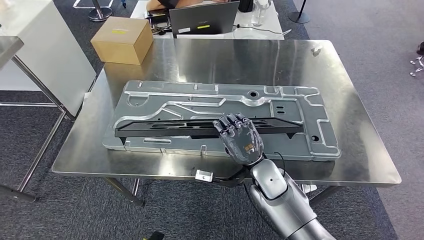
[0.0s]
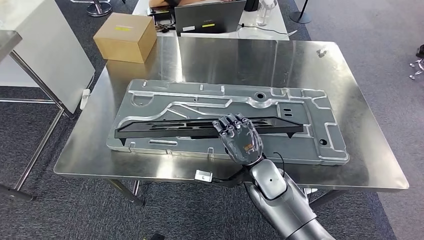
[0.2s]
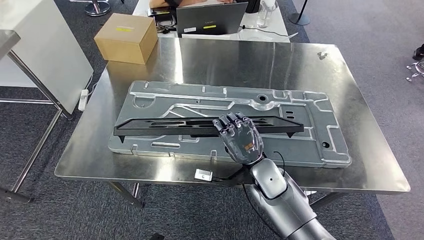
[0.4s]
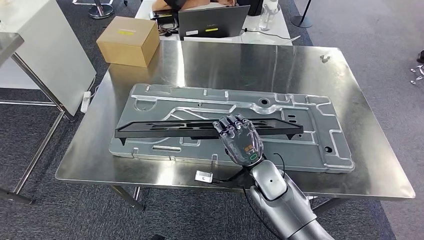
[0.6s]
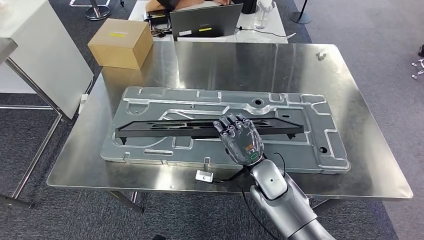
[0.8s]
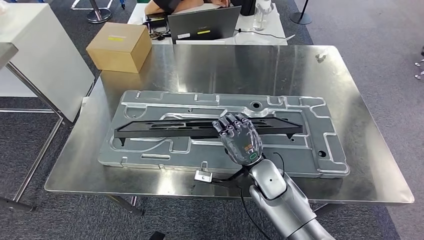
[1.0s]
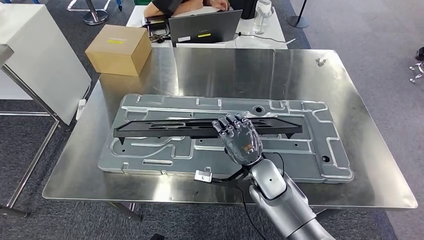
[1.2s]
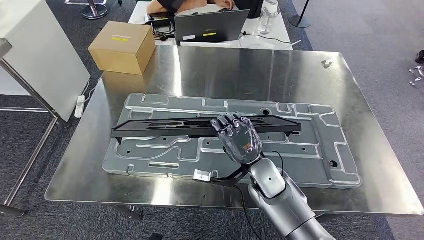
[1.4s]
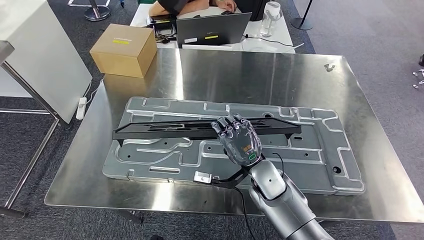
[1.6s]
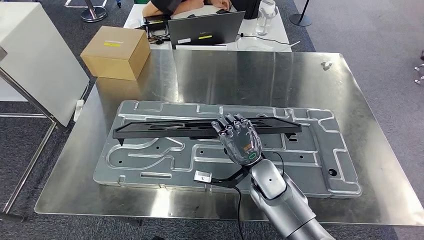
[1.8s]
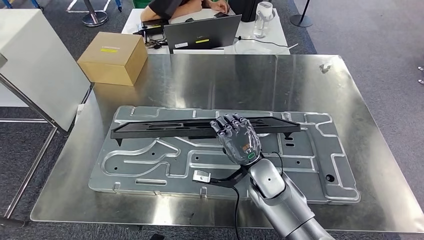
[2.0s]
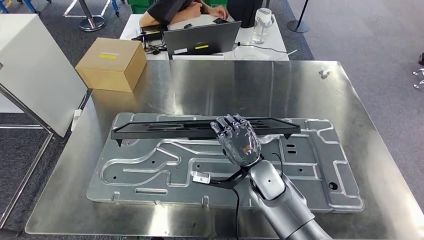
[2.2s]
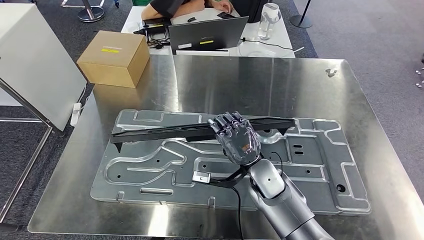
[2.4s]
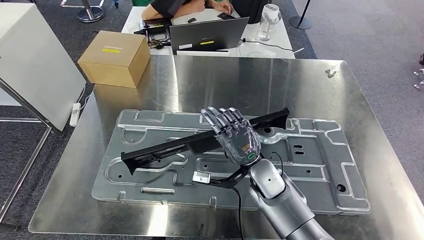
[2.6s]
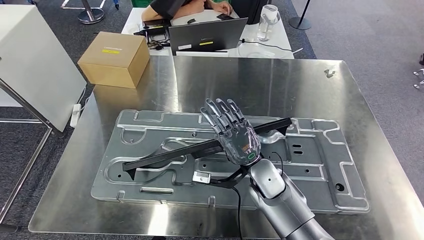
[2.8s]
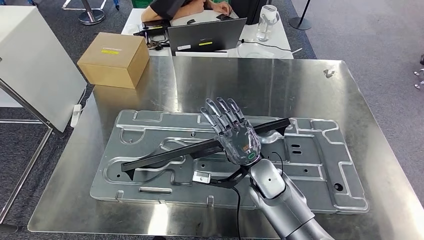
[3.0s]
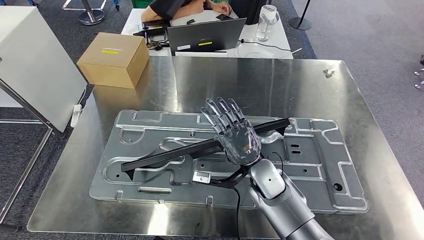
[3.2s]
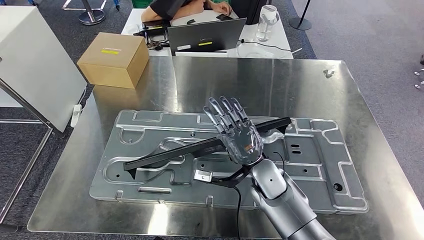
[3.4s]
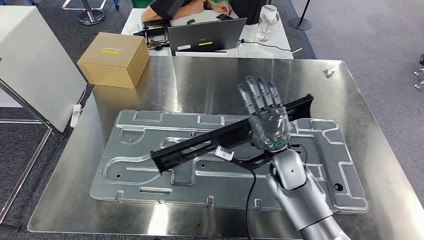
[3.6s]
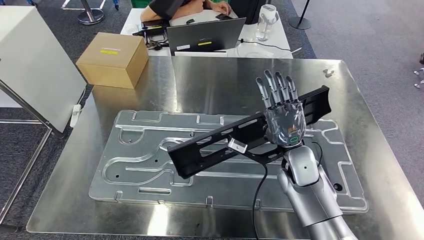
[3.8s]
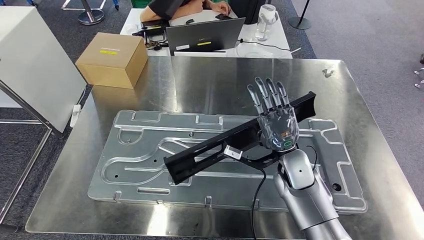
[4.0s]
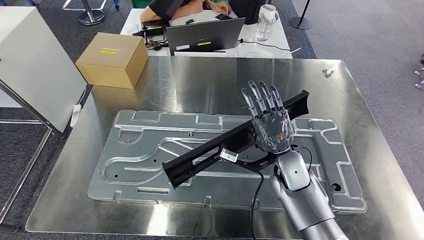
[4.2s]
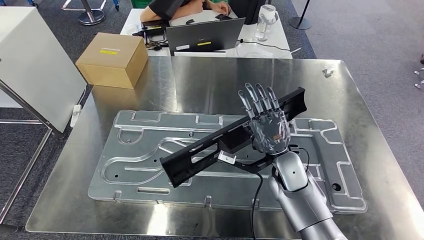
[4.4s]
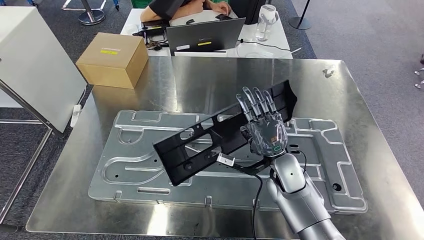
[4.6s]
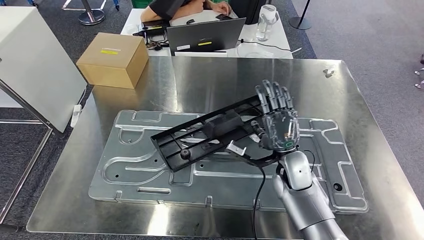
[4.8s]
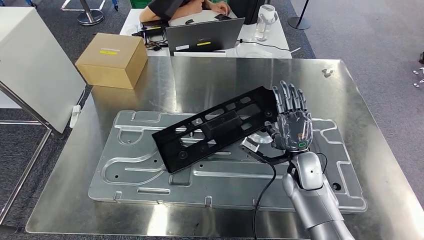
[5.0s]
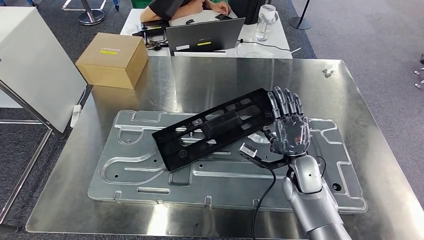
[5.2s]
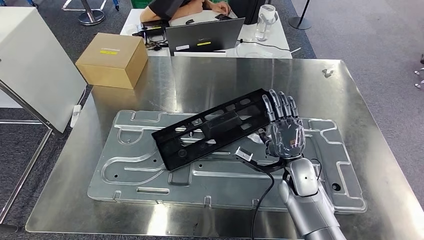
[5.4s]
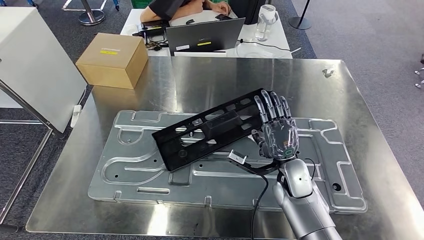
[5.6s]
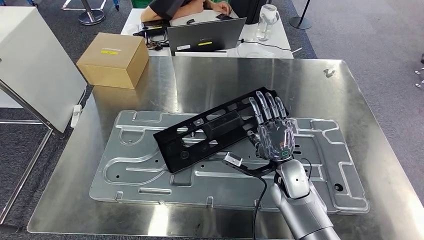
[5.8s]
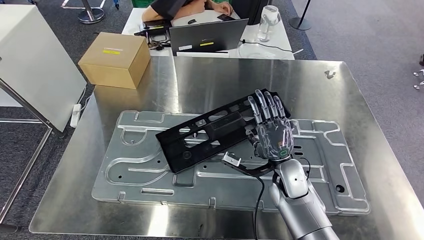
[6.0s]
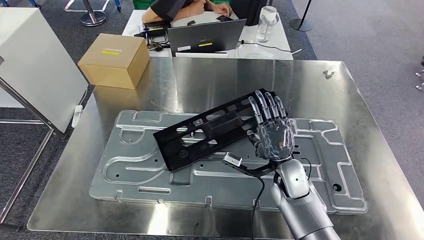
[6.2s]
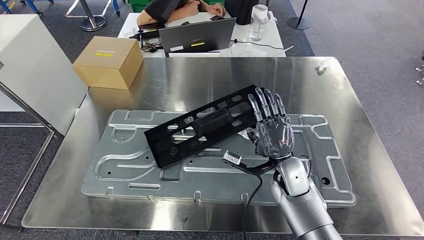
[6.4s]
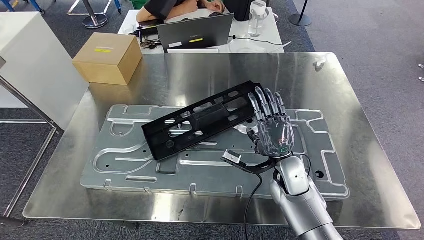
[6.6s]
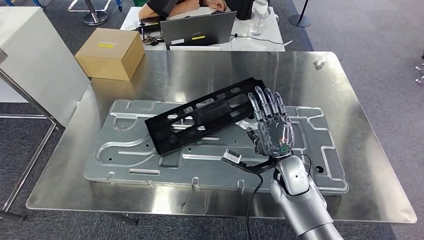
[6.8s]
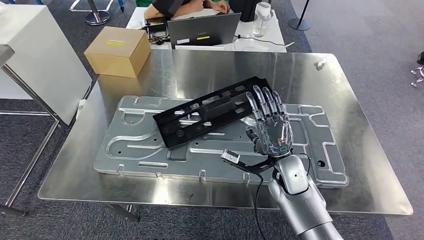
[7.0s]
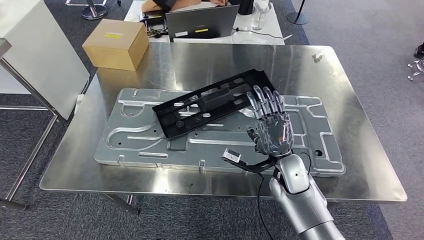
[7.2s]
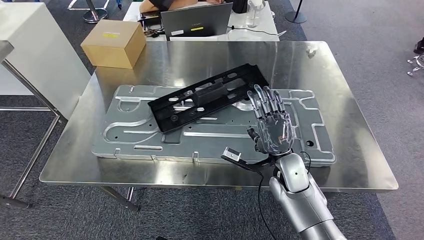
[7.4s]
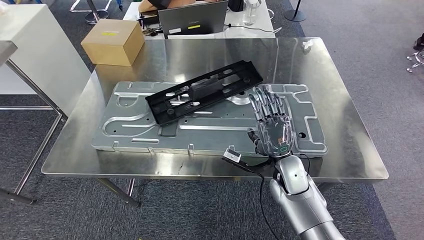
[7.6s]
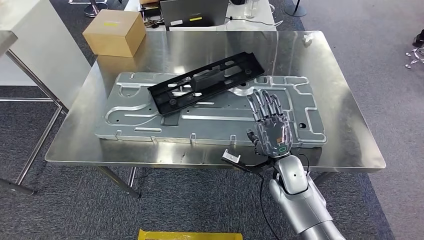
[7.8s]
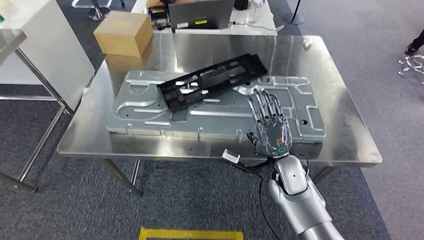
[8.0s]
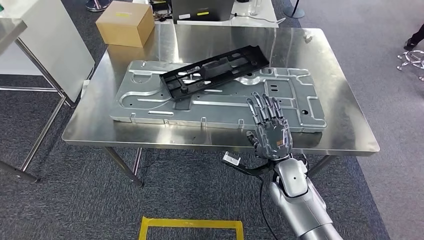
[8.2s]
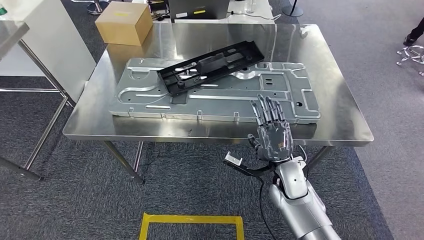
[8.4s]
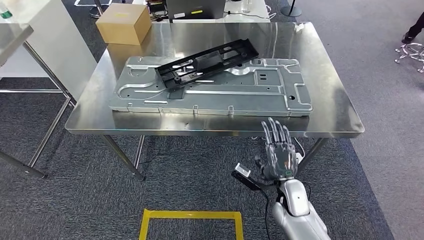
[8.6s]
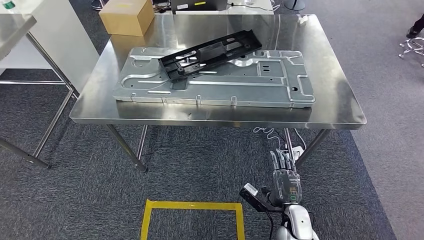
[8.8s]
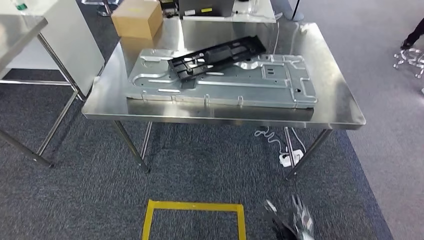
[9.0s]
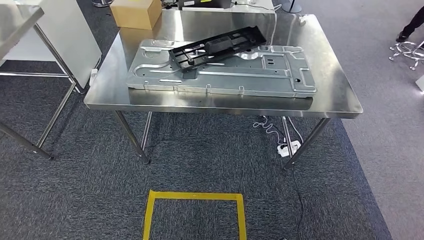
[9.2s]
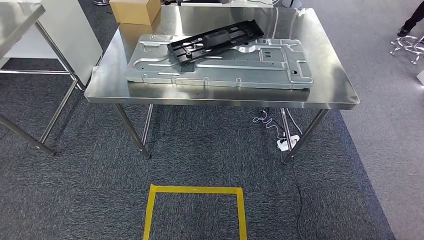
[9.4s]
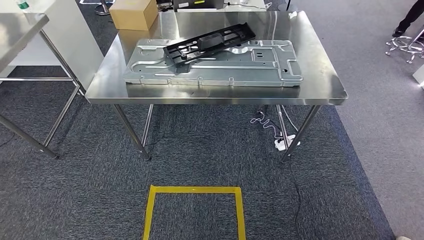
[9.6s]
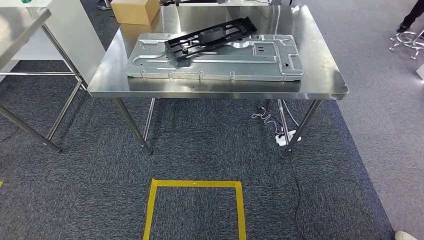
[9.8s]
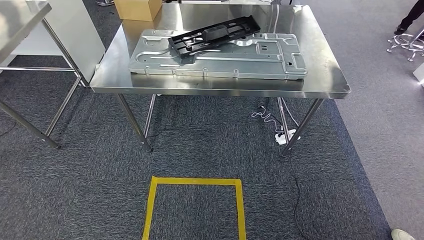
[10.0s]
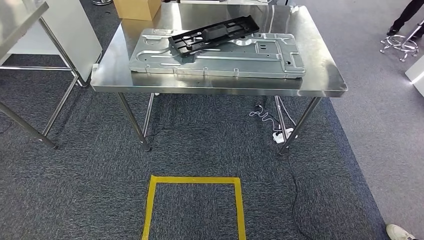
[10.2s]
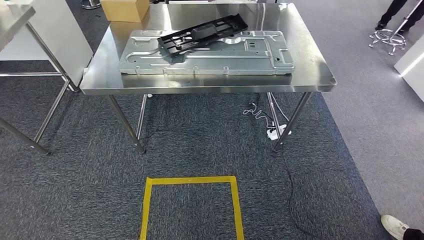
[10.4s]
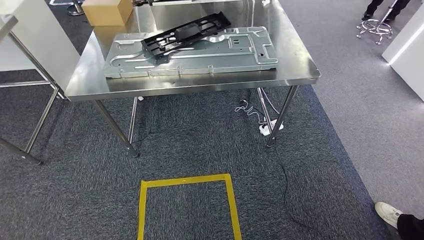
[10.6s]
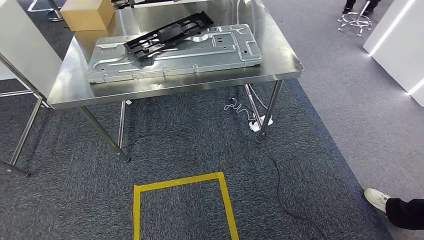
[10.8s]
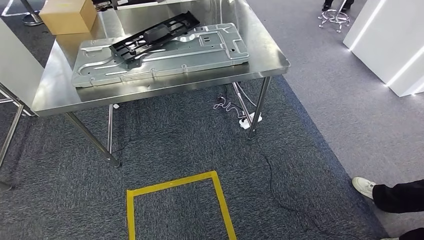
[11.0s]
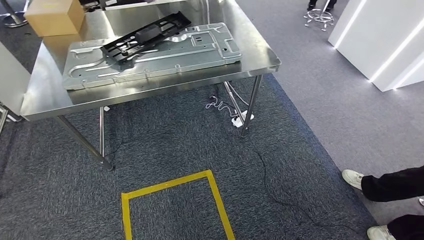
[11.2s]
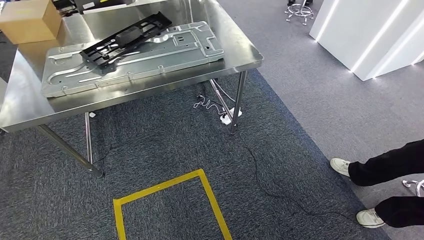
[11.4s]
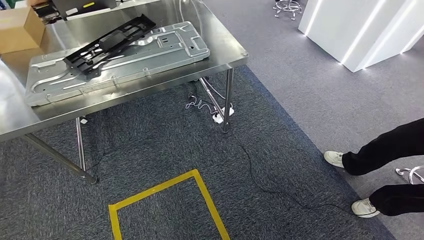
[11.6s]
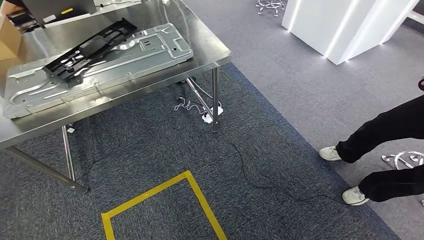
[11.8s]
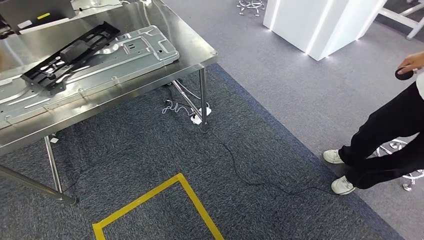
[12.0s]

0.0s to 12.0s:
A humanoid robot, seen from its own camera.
Step, 0.0s to 6.8s: Insert the large material into the corresponding slot on the workbench.
3.0s to 4.4s: The right hand shifts about 5 cm to the right.
4.4s to 6.0s: The hands stay close to where they were, moving slightly.

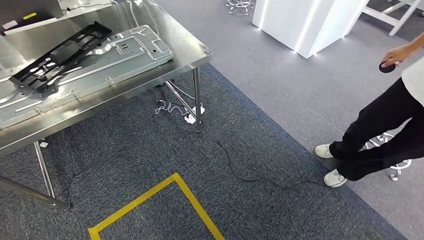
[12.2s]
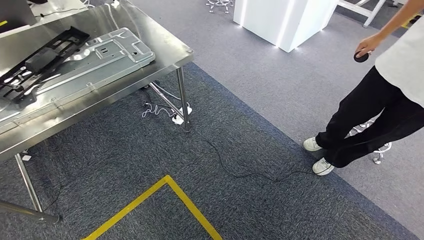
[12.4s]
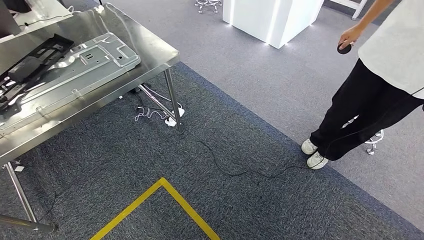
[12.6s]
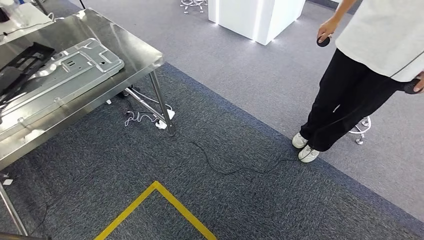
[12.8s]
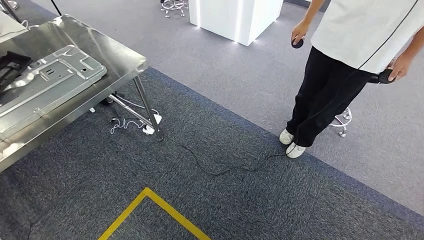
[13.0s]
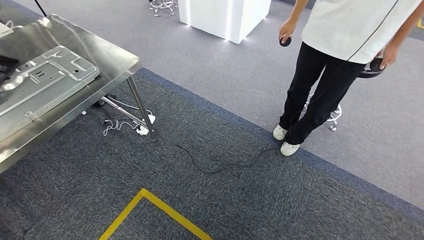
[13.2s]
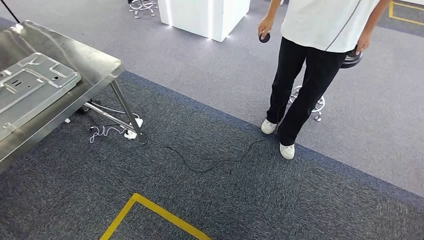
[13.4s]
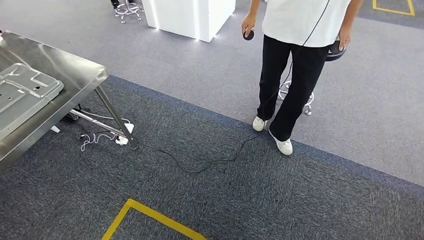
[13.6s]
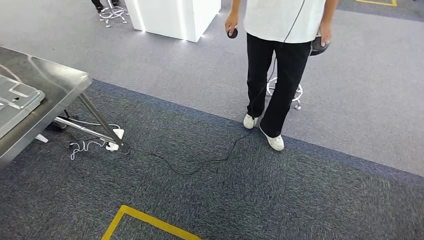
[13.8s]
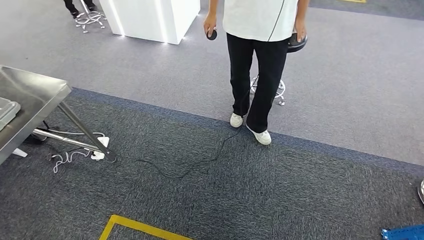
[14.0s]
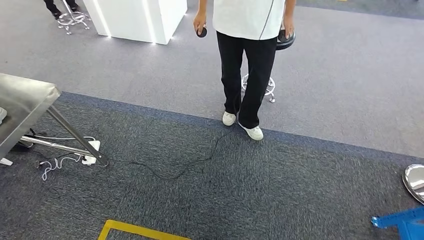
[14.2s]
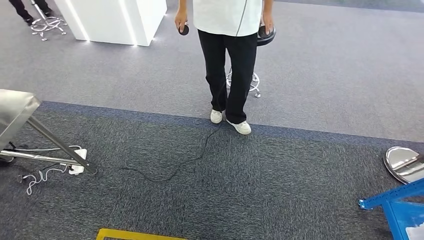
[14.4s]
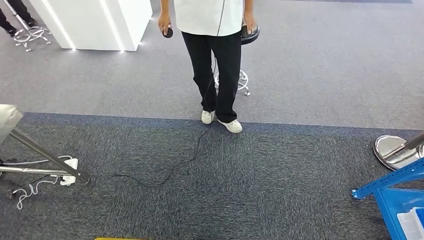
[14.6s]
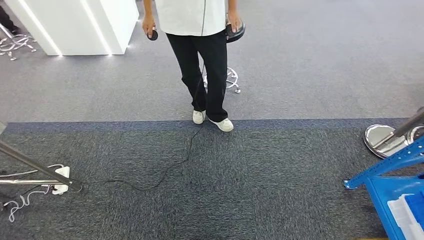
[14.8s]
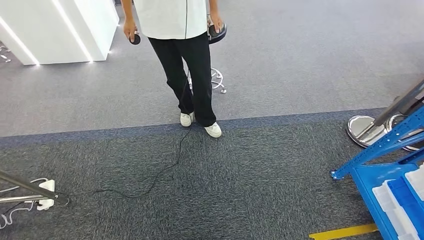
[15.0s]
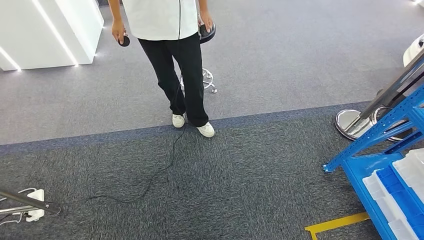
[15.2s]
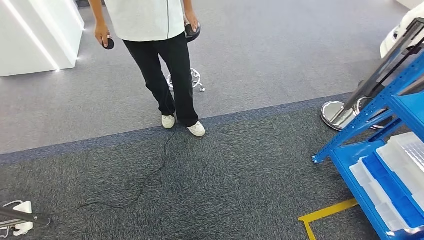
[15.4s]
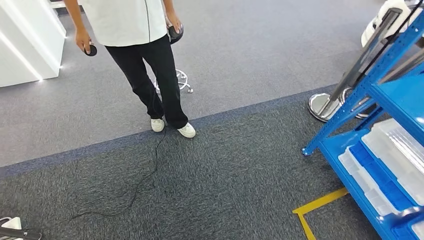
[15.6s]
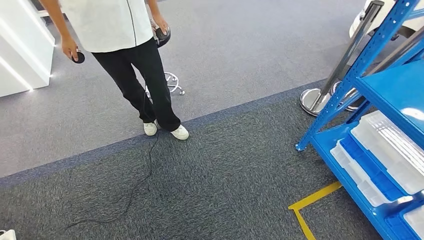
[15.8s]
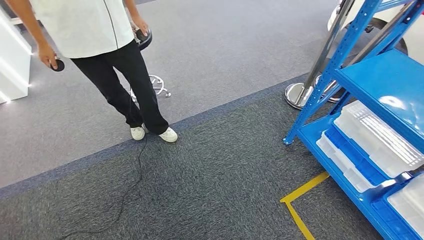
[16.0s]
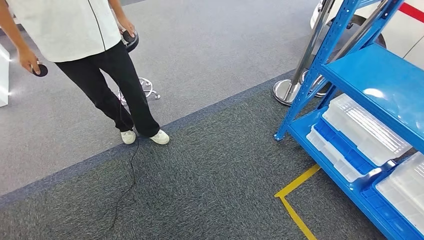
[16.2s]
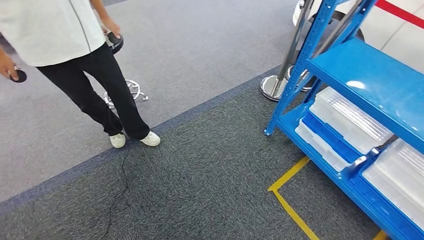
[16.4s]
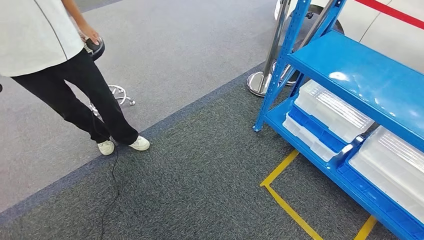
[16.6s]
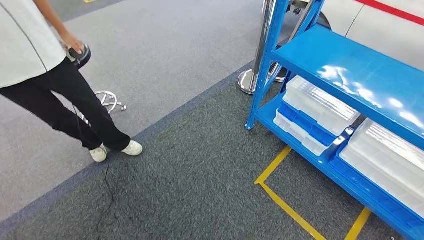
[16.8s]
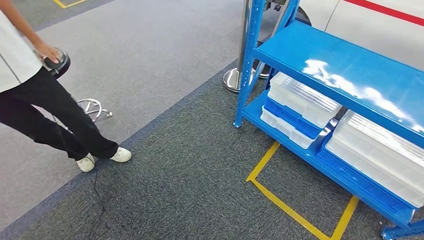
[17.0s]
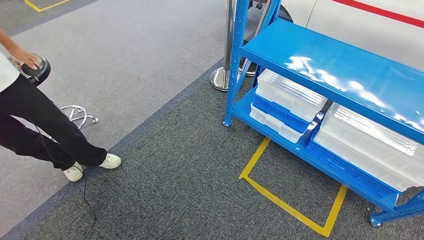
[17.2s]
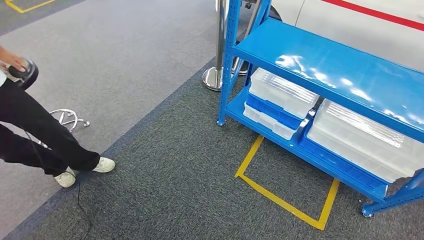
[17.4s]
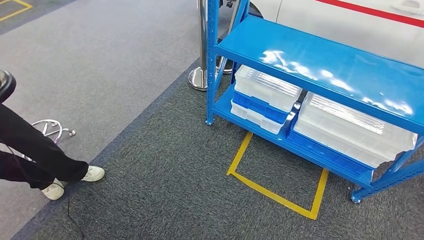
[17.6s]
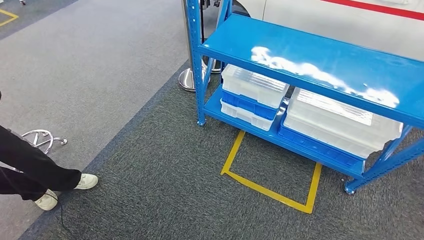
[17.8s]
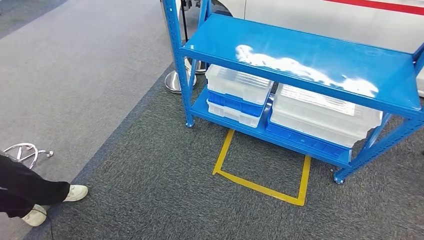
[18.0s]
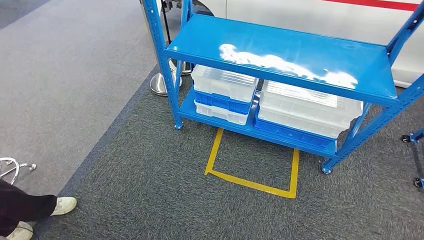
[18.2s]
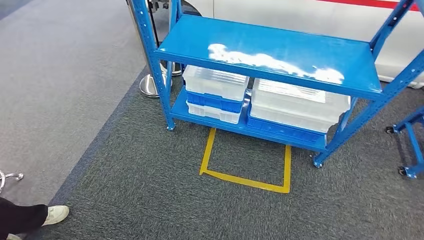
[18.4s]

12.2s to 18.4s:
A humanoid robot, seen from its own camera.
Step, 12.2s to 18.2s: Move to the initial position of the shelf.
